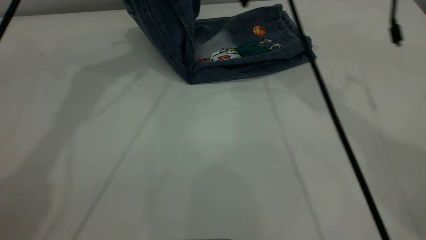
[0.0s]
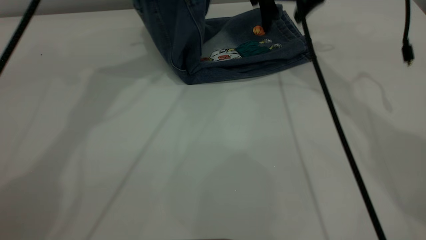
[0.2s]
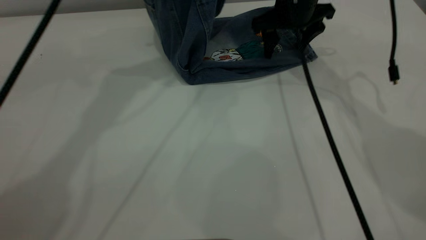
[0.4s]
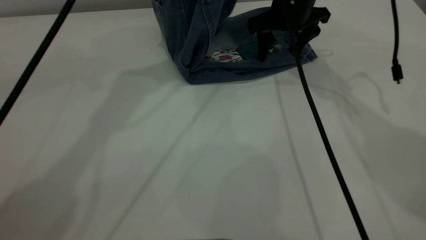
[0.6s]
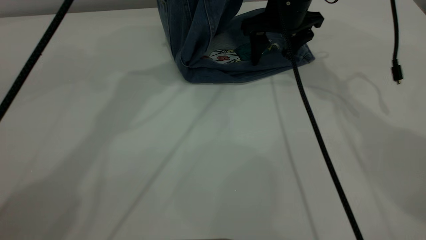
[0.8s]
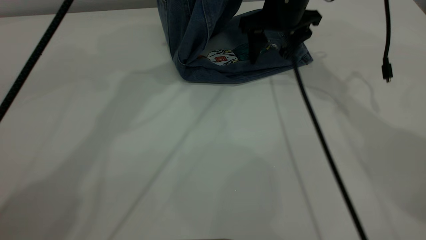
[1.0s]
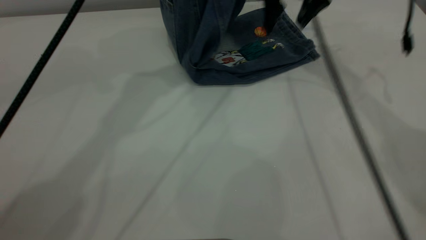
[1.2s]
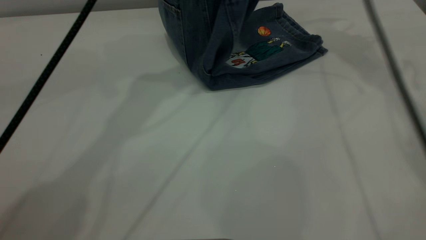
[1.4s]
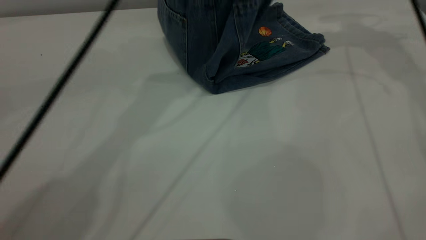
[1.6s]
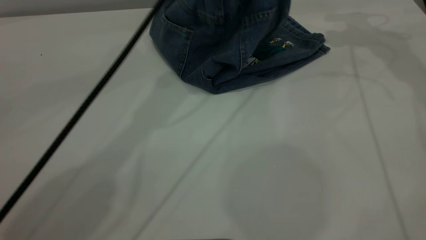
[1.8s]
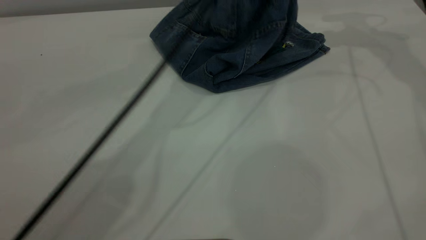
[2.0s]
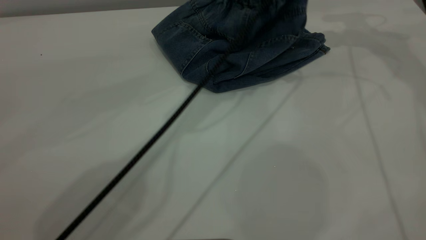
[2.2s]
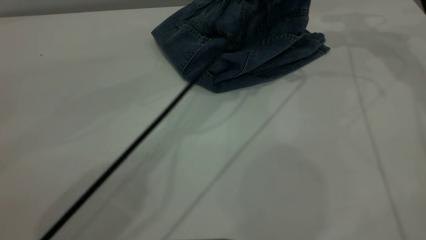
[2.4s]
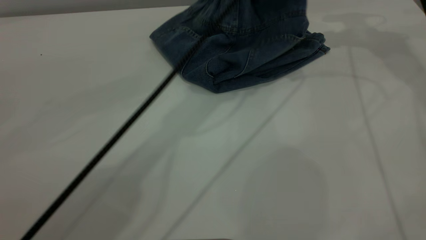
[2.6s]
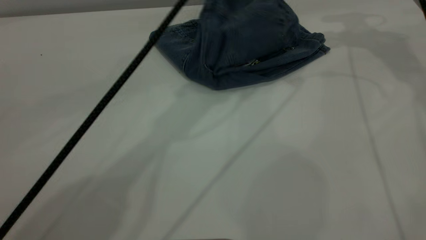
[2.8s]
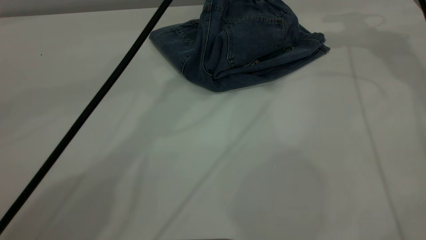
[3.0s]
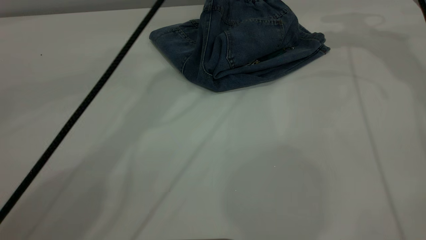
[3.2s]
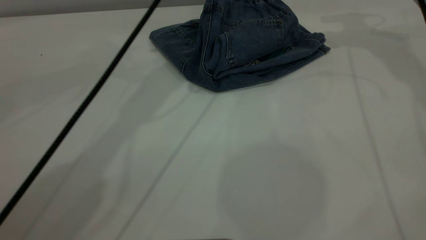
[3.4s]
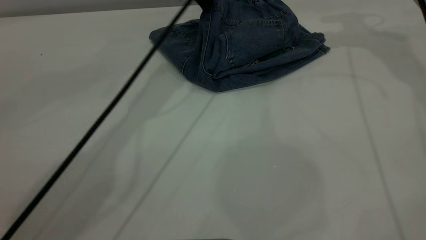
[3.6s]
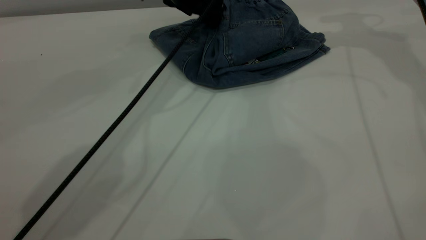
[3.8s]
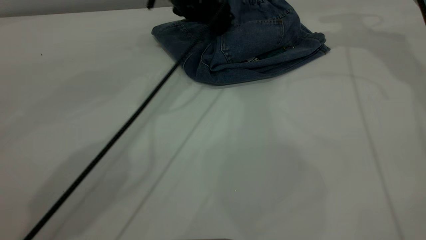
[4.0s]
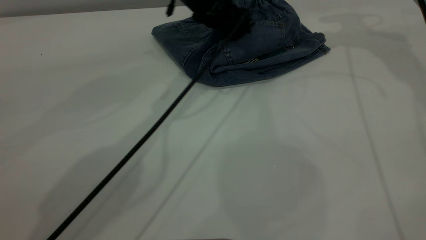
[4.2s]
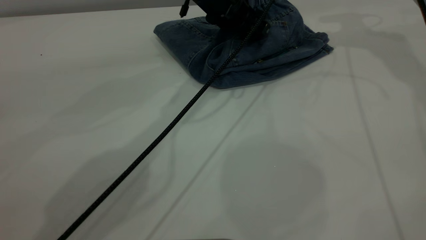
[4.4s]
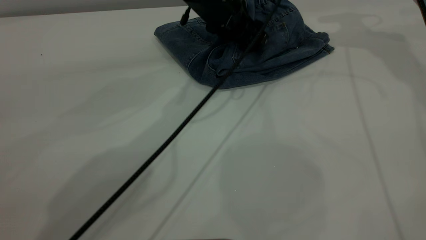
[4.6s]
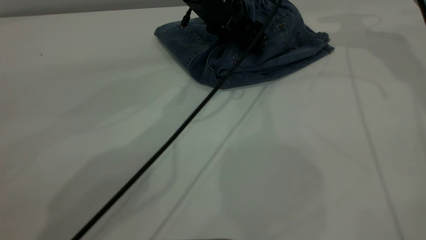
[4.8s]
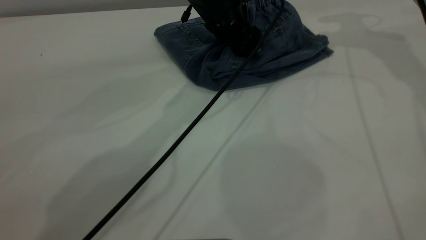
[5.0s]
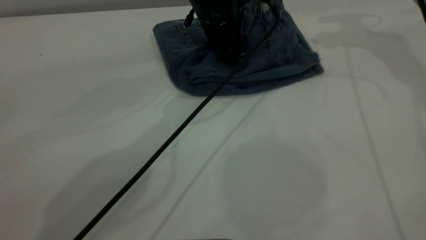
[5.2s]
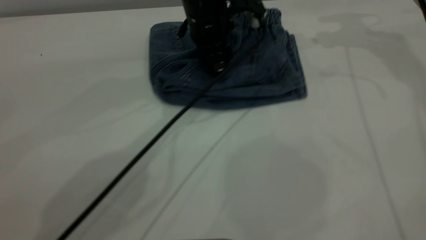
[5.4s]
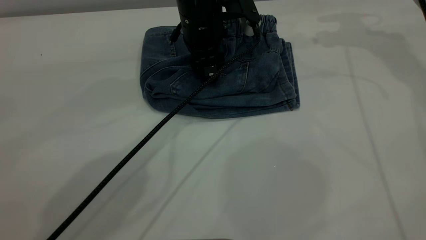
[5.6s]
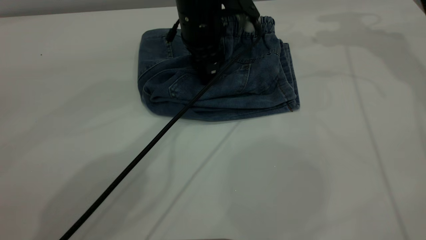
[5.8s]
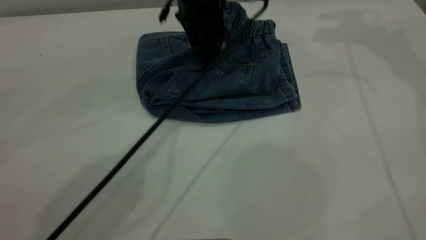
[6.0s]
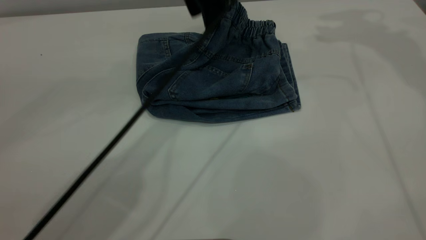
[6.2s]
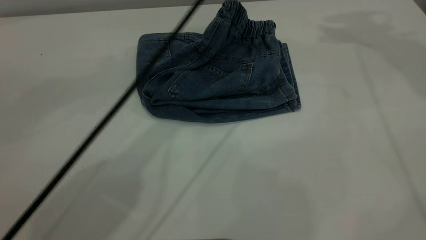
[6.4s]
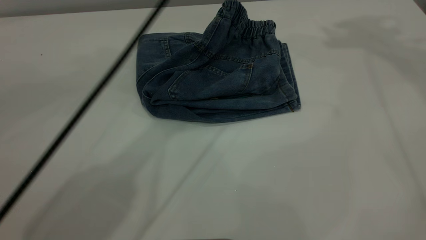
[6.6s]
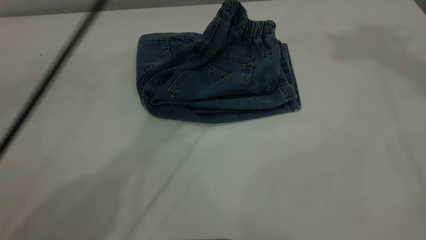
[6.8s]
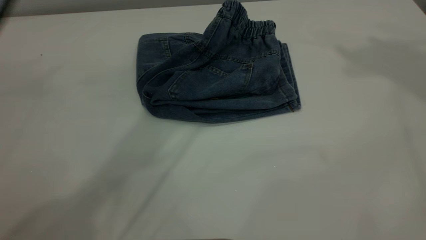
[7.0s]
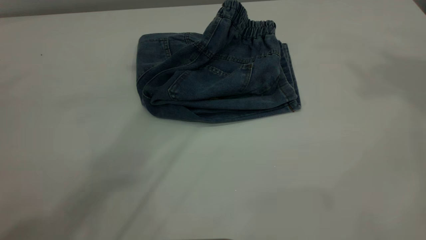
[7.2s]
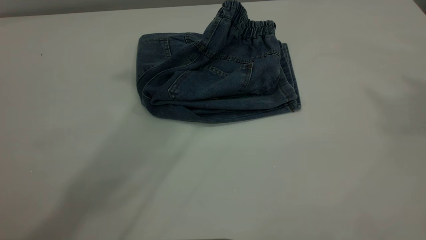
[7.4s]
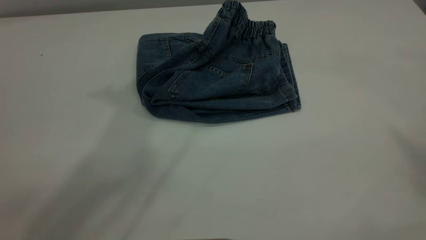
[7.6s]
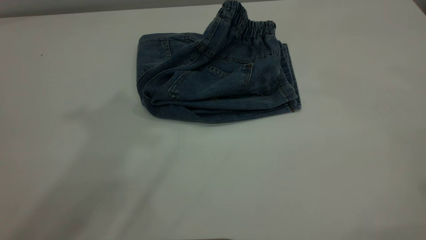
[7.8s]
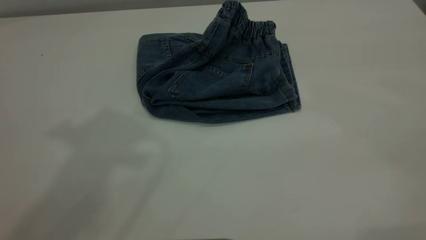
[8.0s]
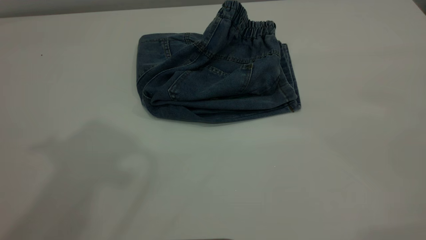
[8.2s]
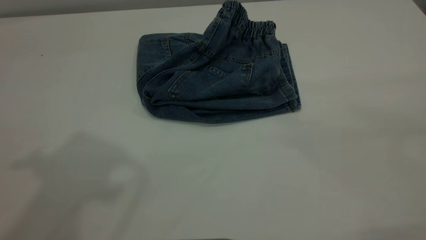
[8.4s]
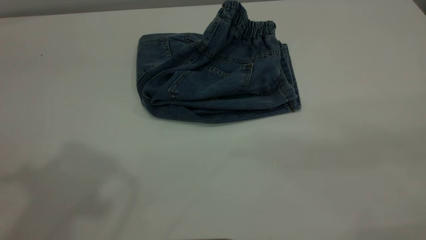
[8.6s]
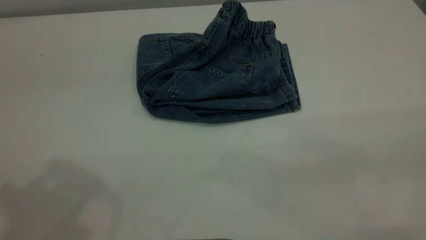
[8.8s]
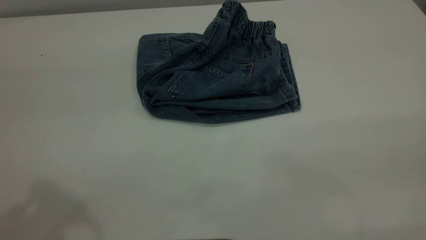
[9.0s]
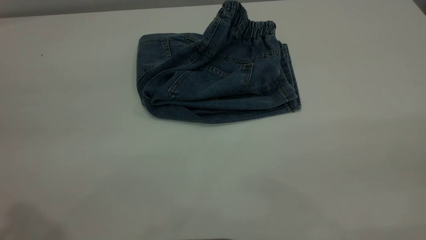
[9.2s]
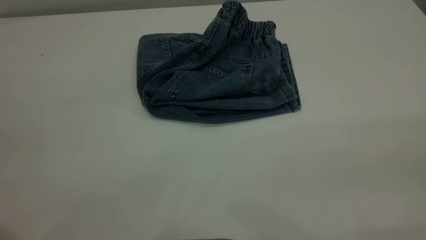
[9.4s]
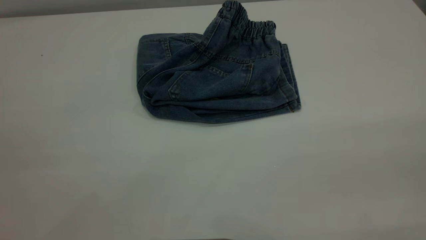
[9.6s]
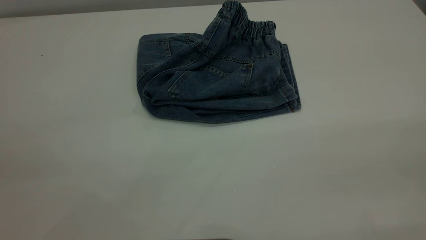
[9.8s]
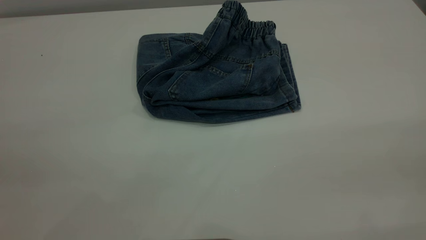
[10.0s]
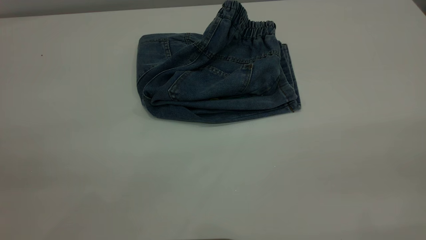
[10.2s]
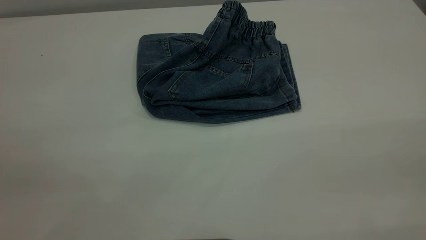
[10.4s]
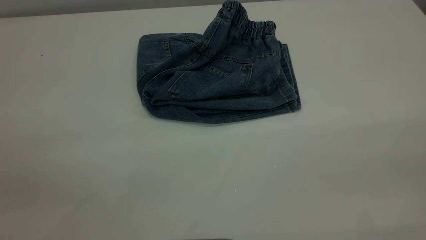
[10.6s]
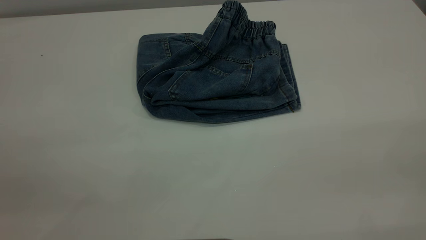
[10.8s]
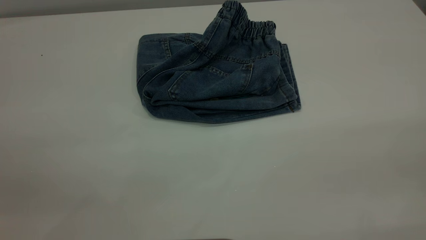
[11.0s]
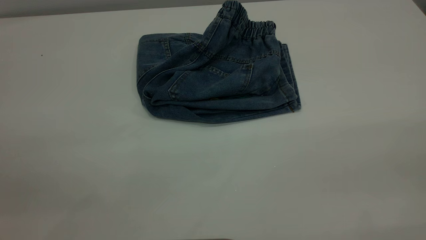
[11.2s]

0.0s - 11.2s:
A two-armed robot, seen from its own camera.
Step, 0.0s - 3.4s: Fold the pants from left to right.
0.0s - 1.6s: The two grippers go roughly 15 cm to the right.
1.6s - 3.2s: The left gripper moves approximately 10 cm downward and comes back, and opens its fingers.
3.2s - 4.8s: The left gripper shifts roughly 15 cm downward.
4.8s - 6.4s: The two grippers go roughly 20 cm upward.
6.4s - 8.0s: The left gripper moves upward, backward and to the left, approximately 35 cm.

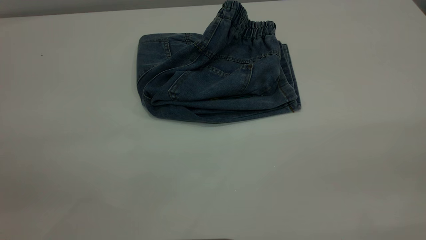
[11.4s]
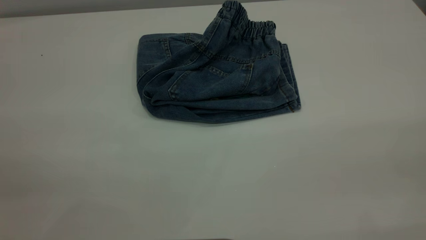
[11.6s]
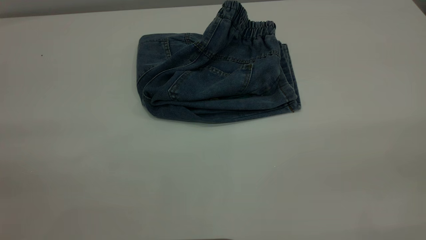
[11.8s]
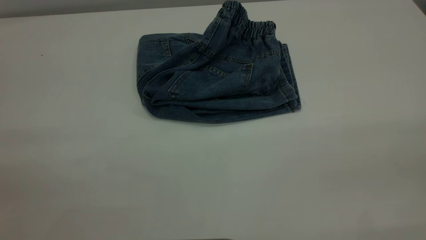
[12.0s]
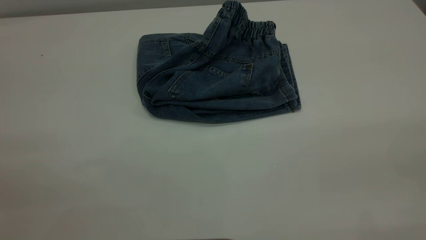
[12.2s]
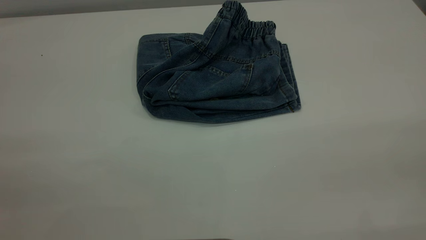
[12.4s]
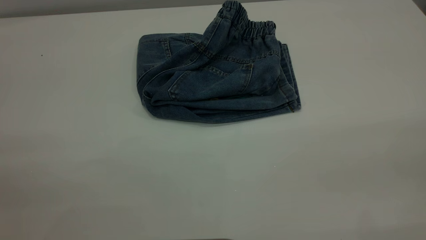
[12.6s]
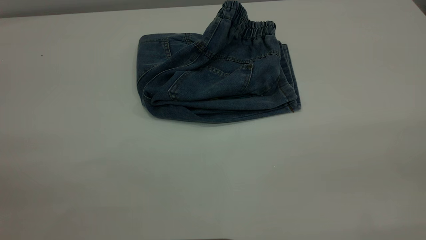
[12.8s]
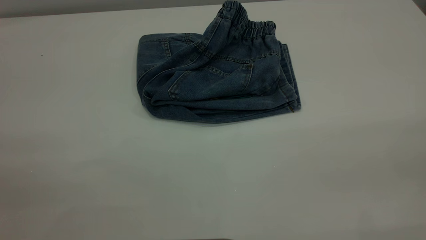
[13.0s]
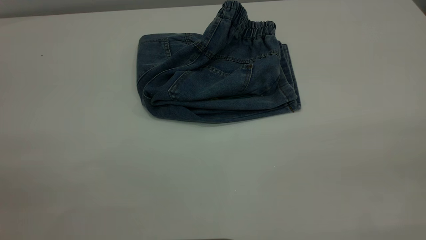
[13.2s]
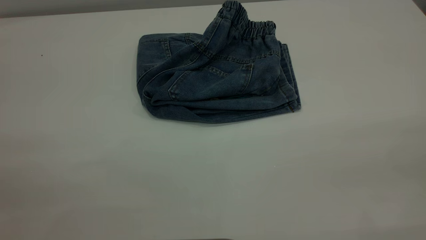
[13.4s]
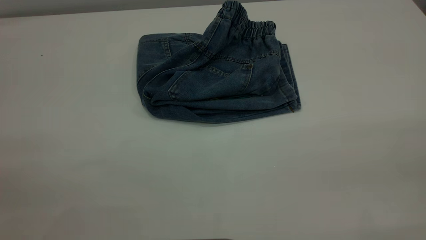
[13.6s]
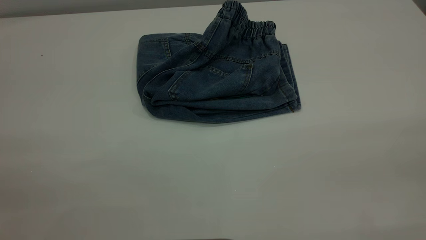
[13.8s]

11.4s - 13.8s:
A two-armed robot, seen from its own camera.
12.6s - 13.8s: Neither gripper changes place.
